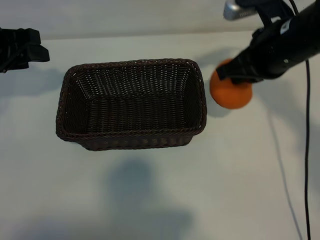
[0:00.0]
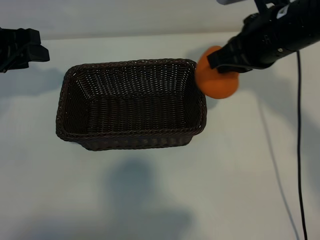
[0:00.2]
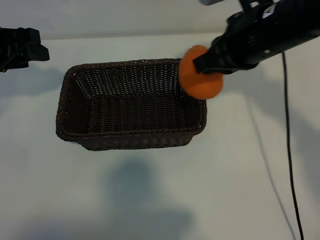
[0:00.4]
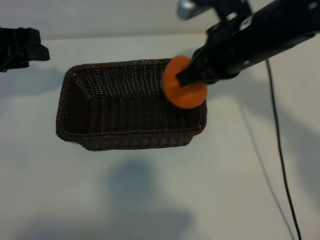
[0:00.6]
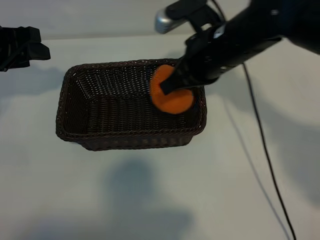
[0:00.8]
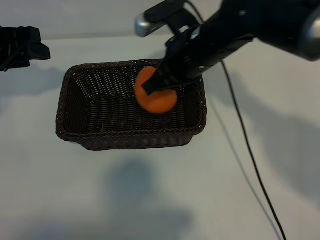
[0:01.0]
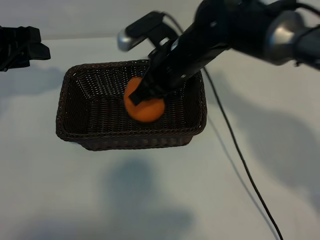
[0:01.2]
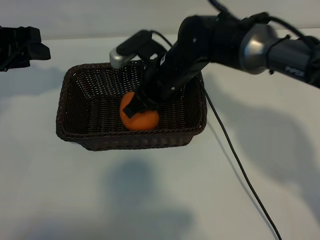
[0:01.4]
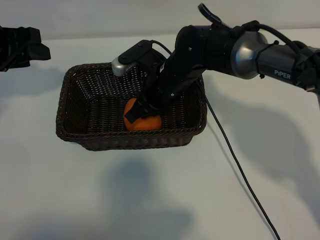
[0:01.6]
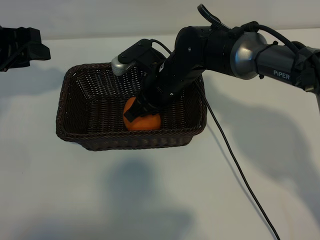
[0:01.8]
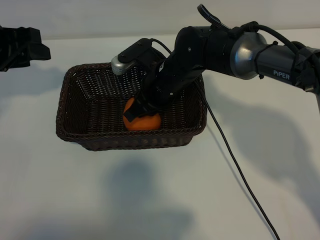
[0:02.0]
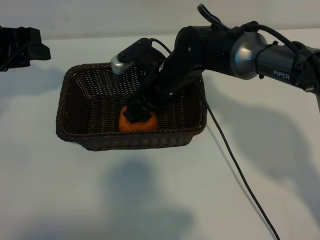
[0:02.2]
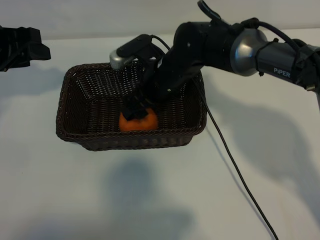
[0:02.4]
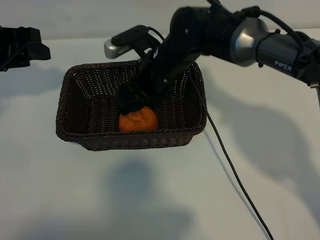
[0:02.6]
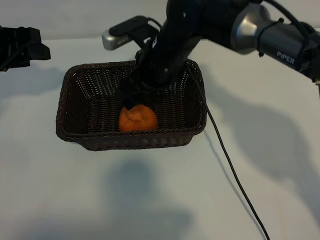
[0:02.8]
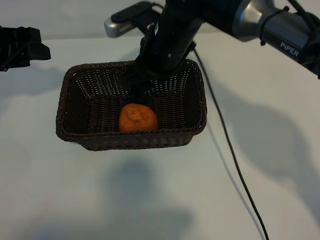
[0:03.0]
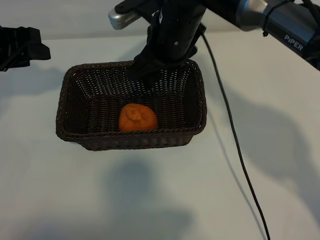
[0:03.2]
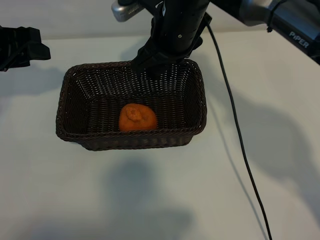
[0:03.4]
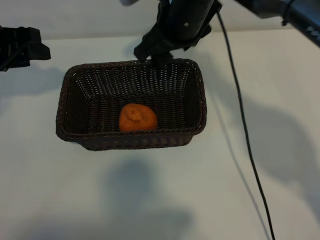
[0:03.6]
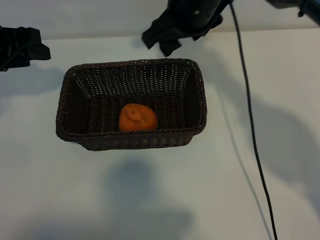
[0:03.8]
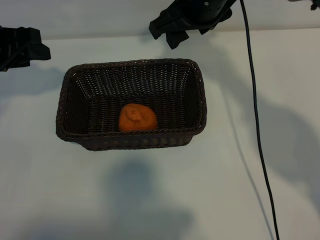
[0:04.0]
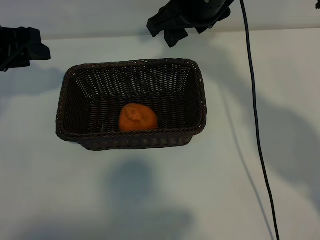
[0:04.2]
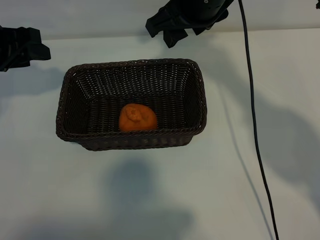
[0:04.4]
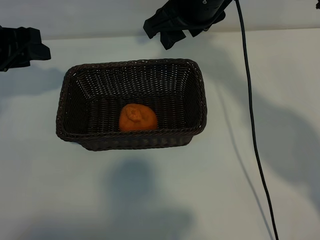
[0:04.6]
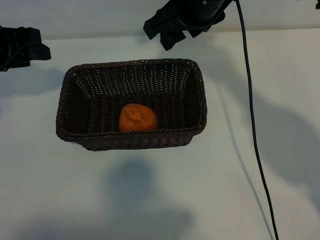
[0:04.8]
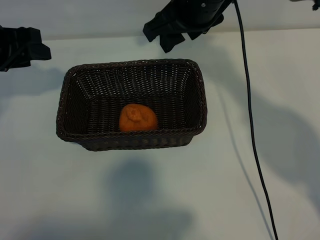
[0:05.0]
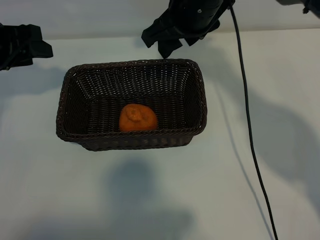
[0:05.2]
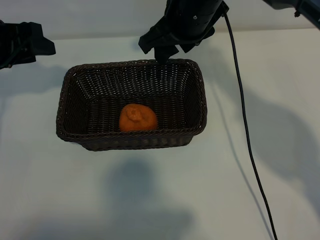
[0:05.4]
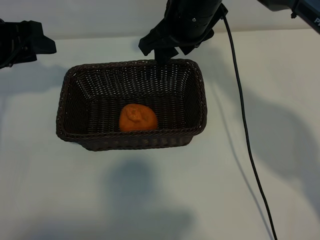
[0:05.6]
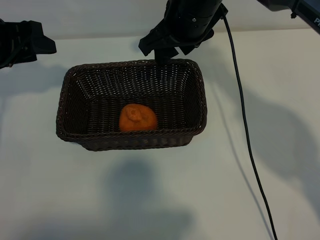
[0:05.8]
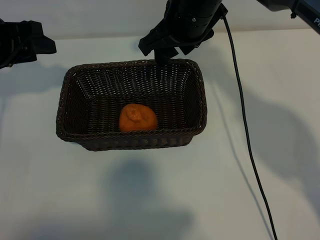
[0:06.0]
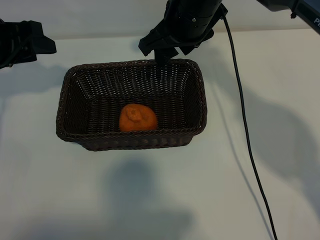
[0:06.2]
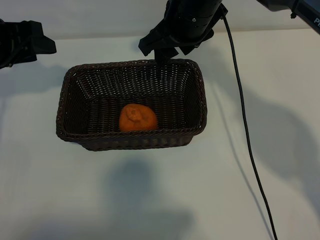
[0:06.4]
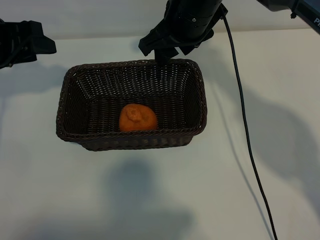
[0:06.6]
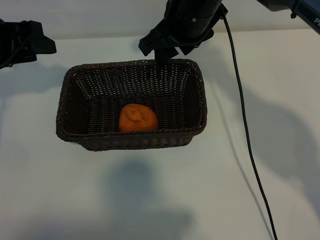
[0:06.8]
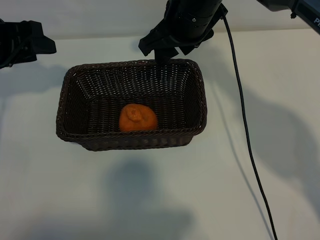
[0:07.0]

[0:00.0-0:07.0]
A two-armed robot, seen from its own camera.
Task of the whole recording: pick up the orange and put it into the basket.
Step, 0:00.0 to 0:02.2: Place the orange in the basket with right gripper.
